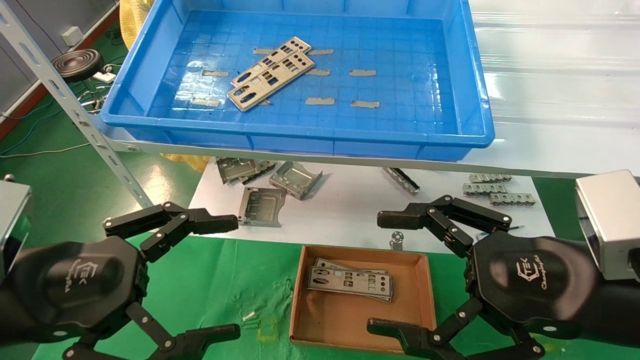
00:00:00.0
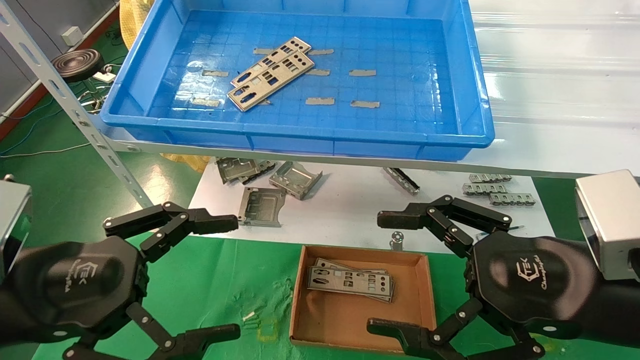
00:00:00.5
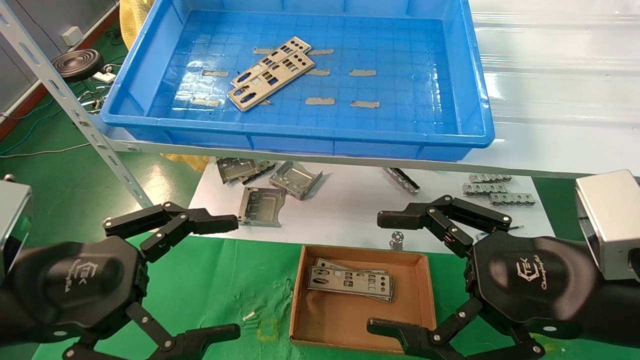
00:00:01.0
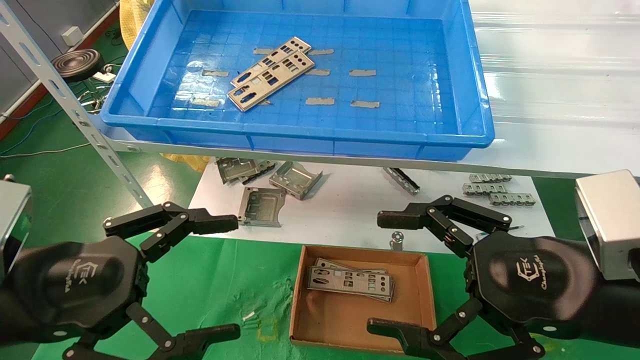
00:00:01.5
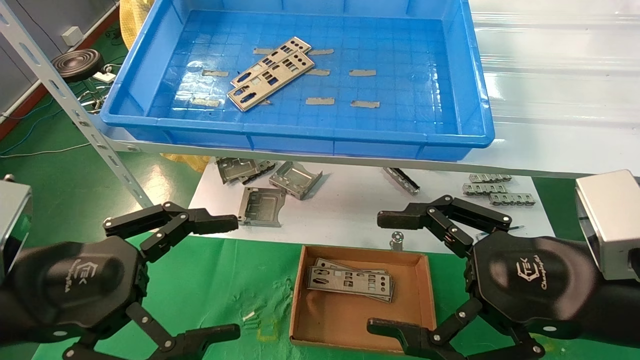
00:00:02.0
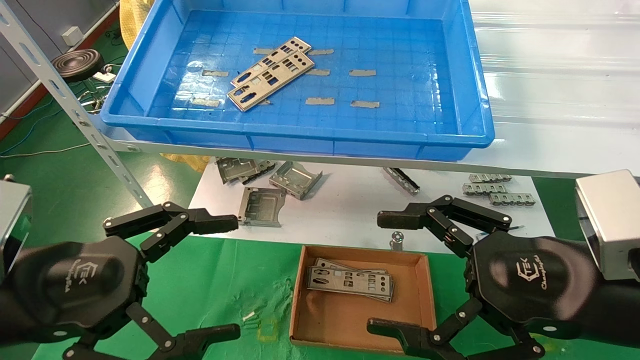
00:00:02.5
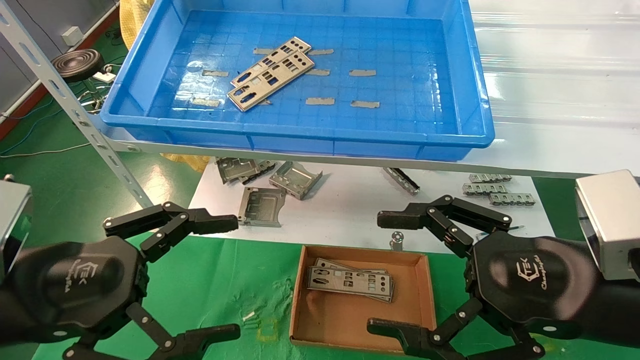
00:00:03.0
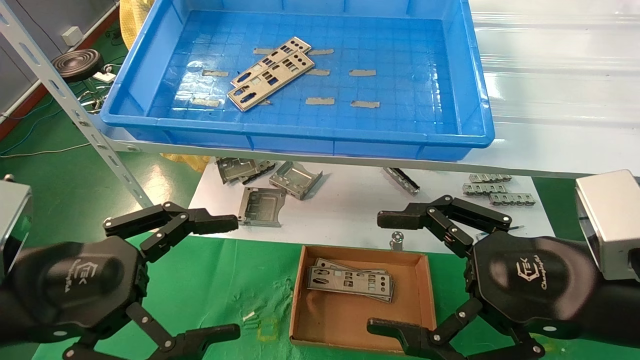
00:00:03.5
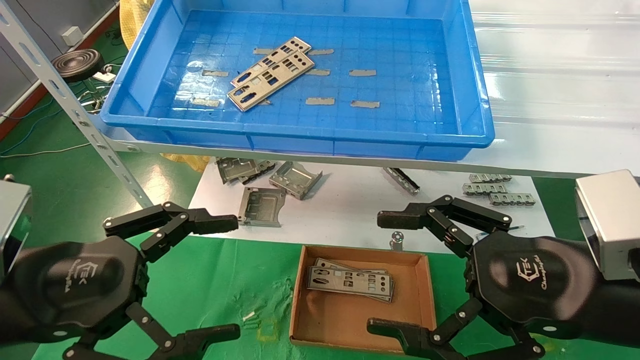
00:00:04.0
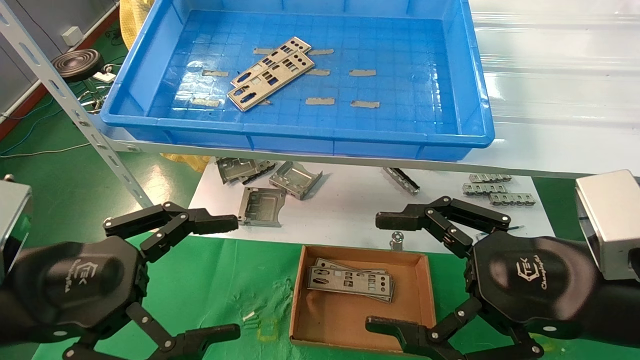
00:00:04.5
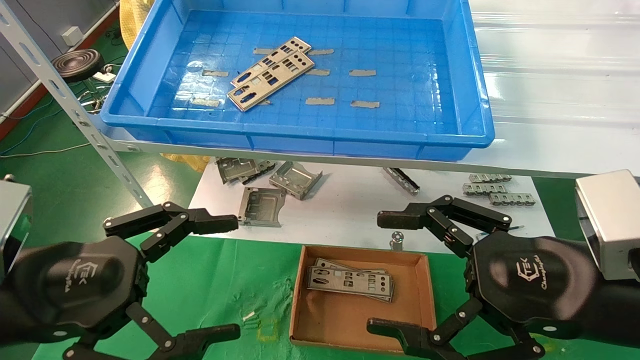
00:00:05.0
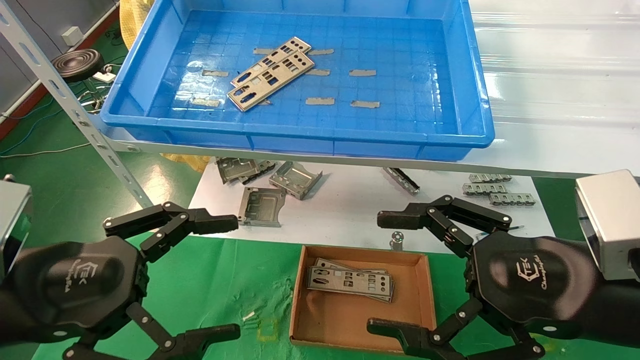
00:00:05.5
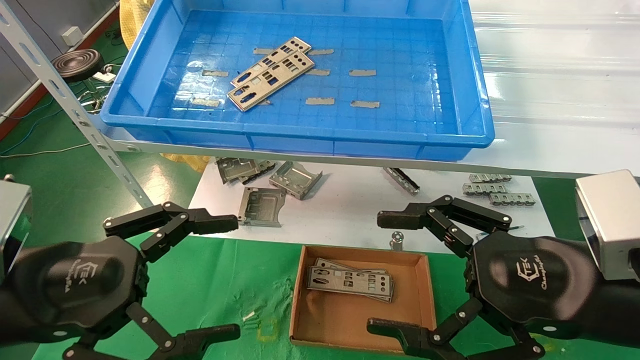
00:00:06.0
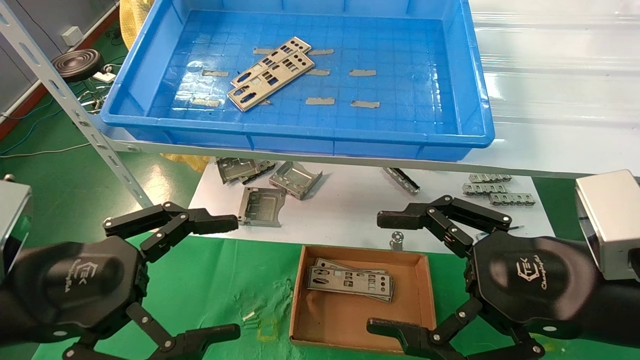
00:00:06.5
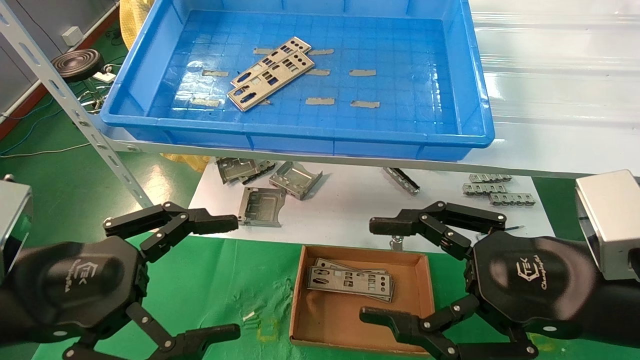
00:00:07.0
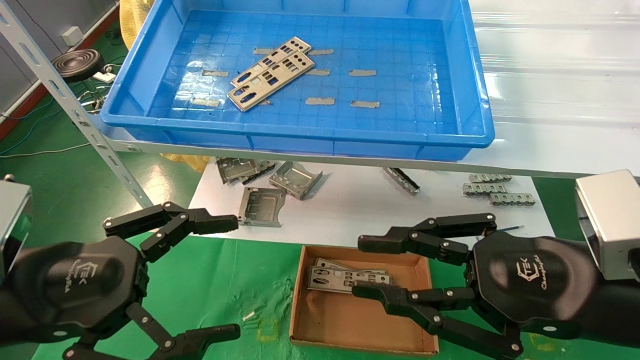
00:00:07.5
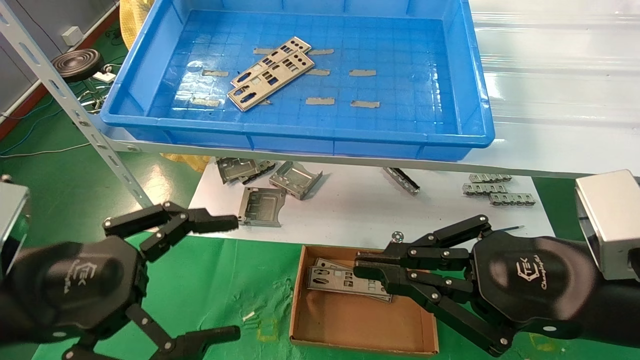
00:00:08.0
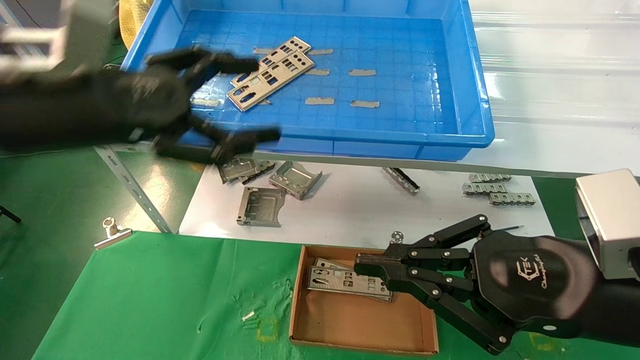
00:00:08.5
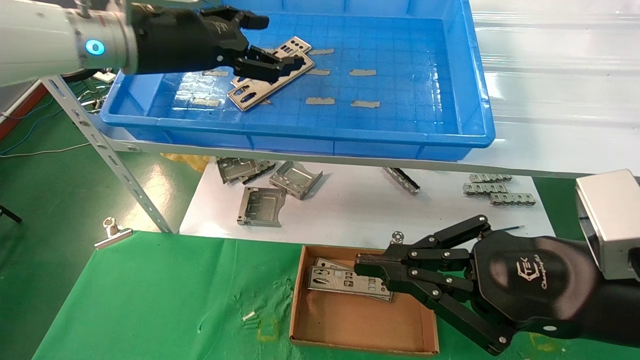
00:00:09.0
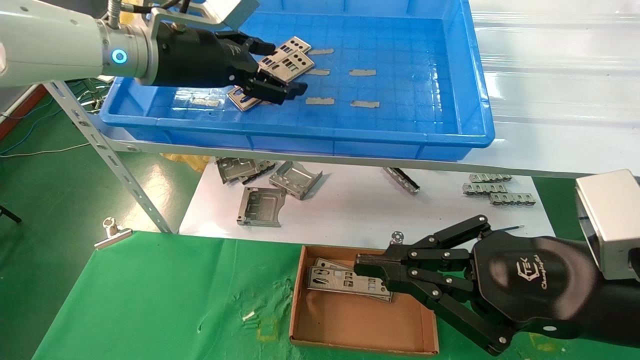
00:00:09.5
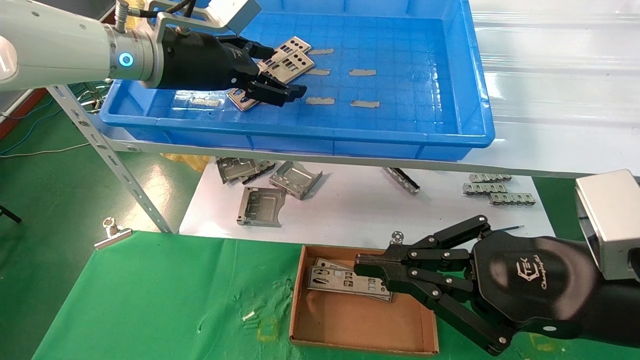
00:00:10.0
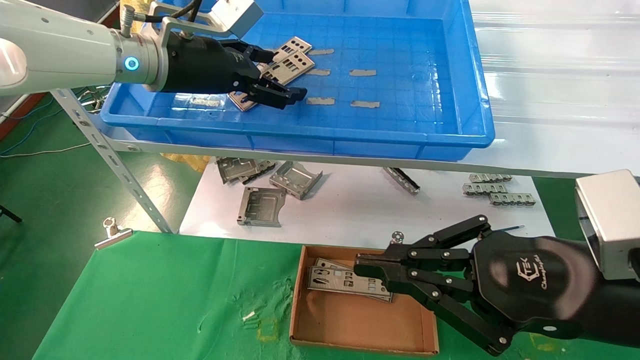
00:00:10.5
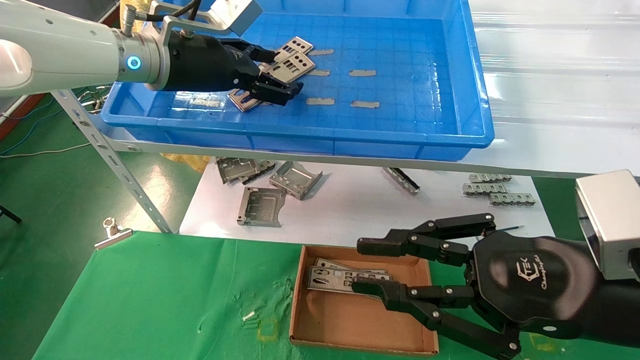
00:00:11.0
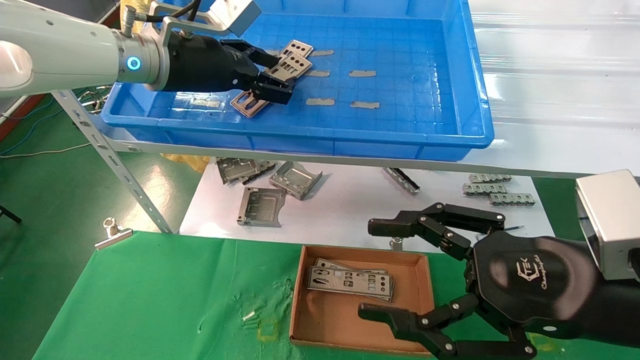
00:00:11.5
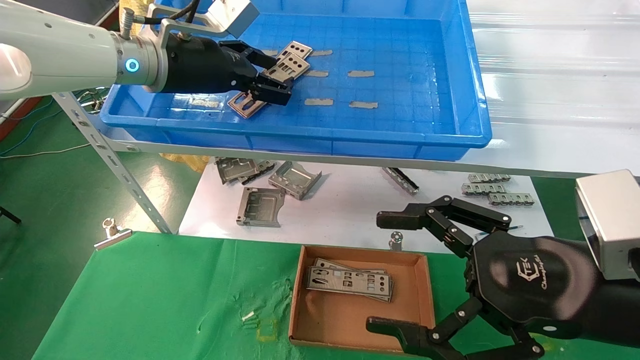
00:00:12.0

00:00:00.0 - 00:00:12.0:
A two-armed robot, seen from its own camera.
Task of the whole recording: pick up the parts on the tray and put them in the cardboard box.
Step, 00:00:08.5 - 00:00:11.5: Pick up the IO bracket from the container box.
00:00:00.0 - 00:00:06.0: Both grippers stay put.
00:00:06.0 - 00:00:08.0: The right gripper closes its fingers.
00:00:08.0 - 00:00:10.0: The left gripper moves forward, upward and to the right, roughly 30 cm.
00:00:10.0 - 00:00:12.0: The right gripper opens up, while the left gripper closes up.

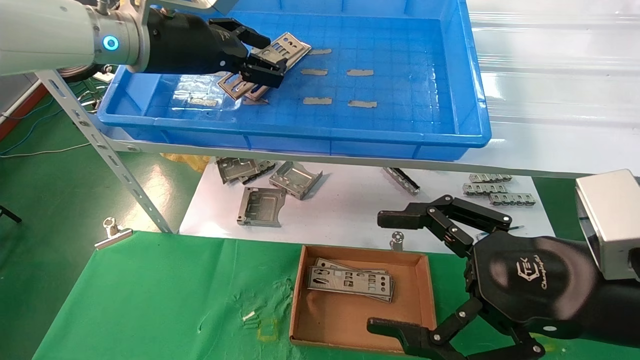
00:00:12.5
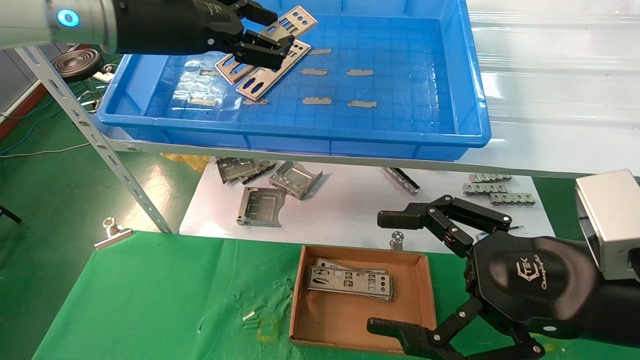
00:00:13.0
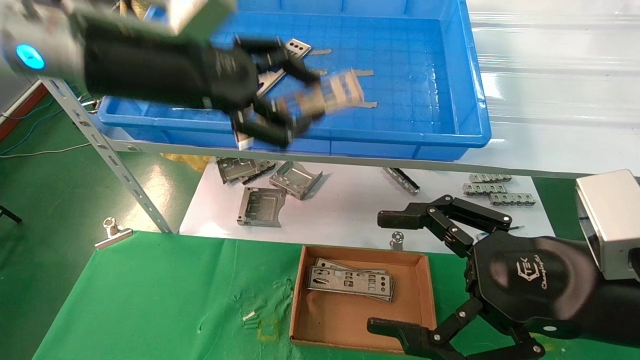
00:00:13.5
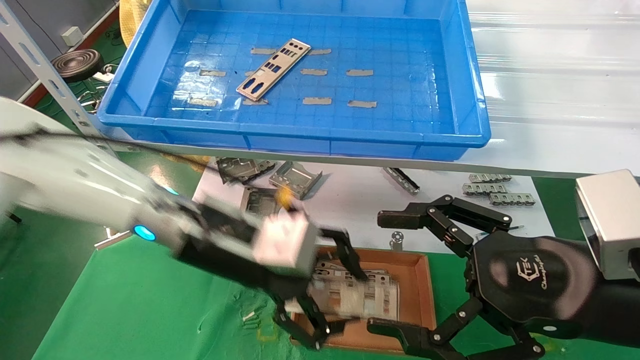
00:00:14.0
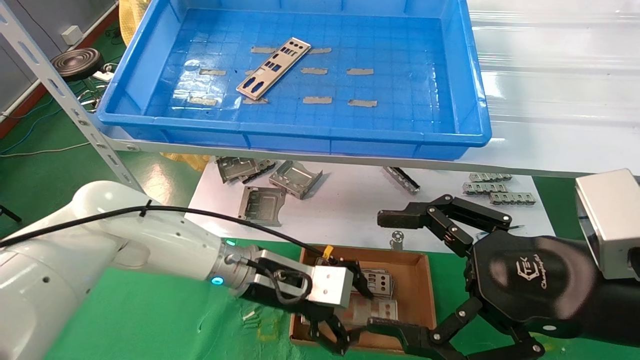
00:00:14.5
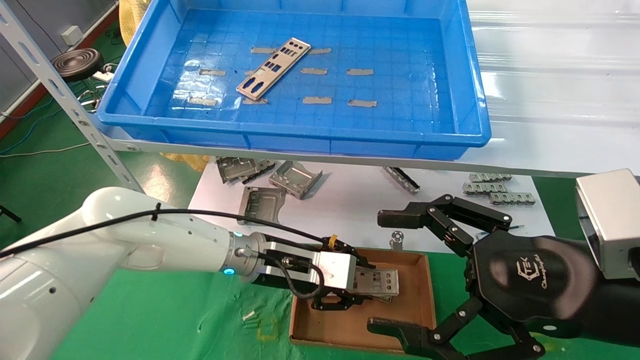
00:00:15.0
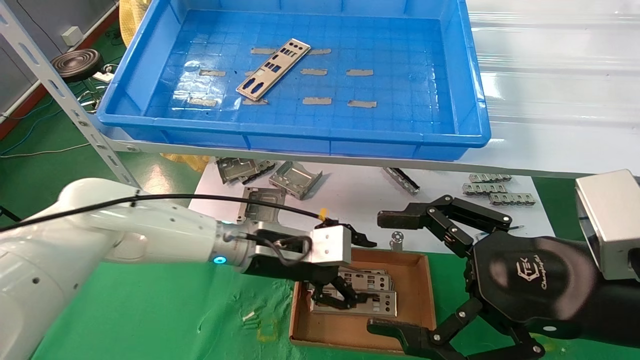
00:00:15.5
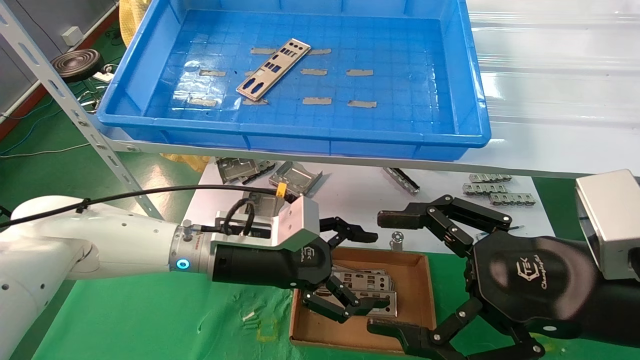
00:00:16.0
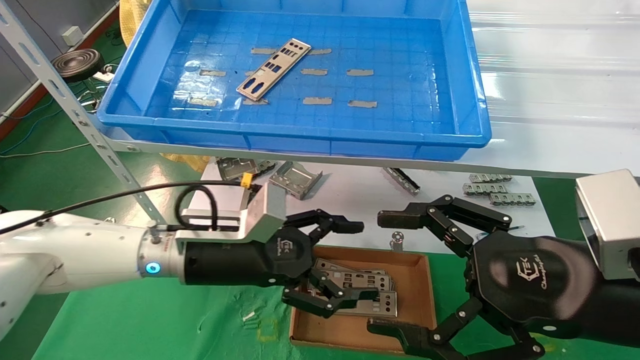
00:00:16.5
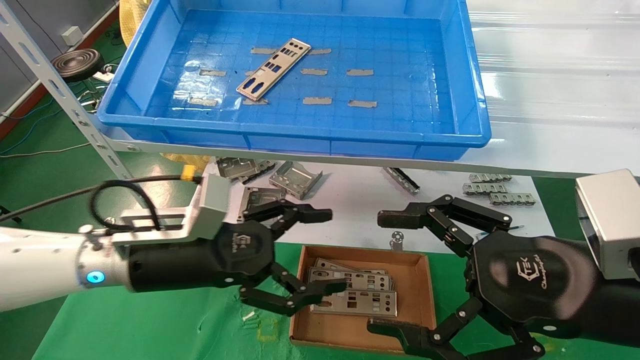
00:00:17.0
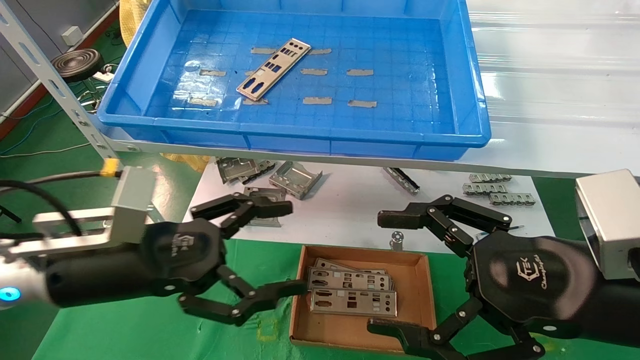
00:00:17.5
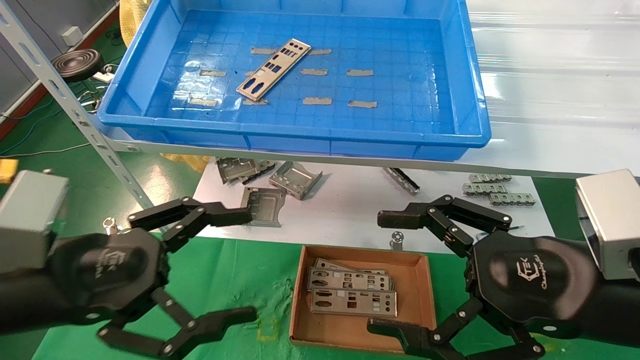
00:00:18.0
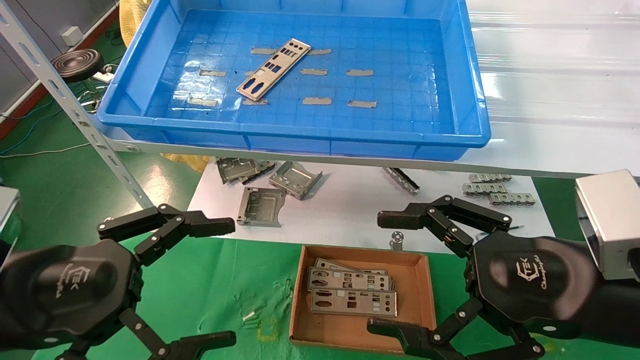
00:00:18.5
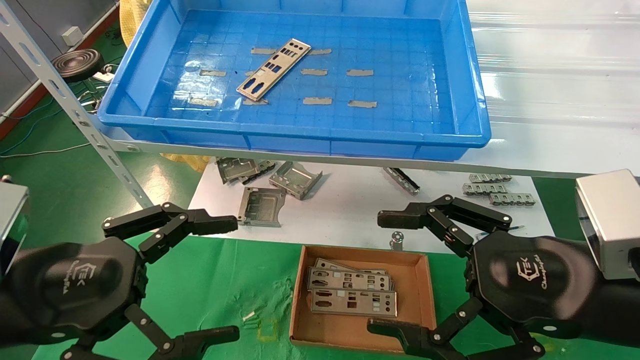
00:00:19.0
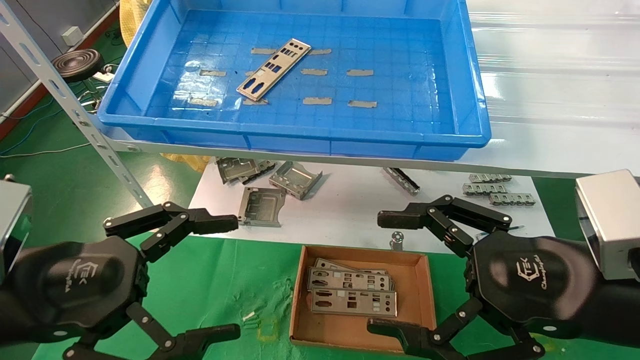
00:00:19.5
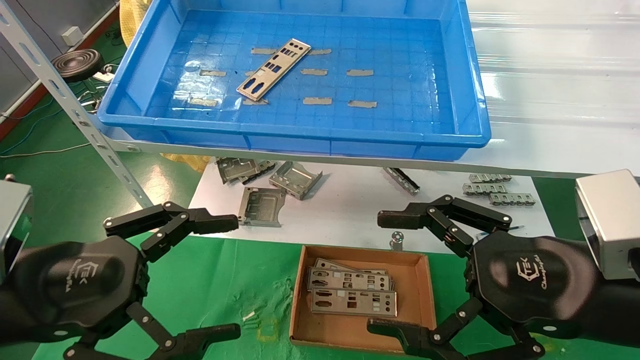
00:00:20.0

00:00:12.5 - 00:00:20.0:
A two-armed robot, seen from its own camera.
Task of the whole recording: pick up the parts on the tray and put them in the cardboard box.
Step, 00:00:12.5 - 00:00:15.0: Place the IO bracket into the ingredient slot.
00:00:12.5 - 00:00:14.5: The left gripper shifts about 30 cm downward.
00:00:14.5 - 00:00:16.5: The left gripper travels to the left by roughly 5 cm, and opens its fingers.
00:00:16.5 - 00:00:18.0: The left gripper heads backward and to the left, covering some 20 cm.
00:00:18.0 - 00:00:20.0: The grippers make only small movements.
